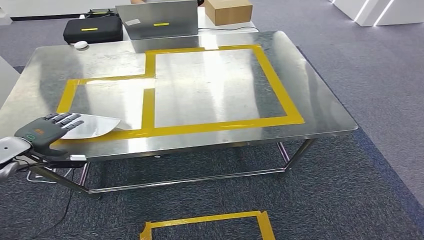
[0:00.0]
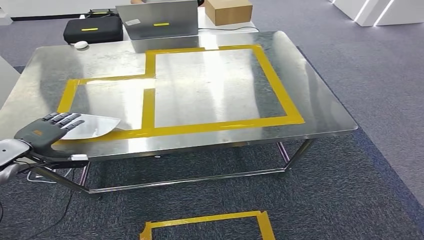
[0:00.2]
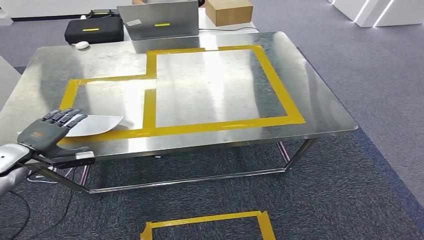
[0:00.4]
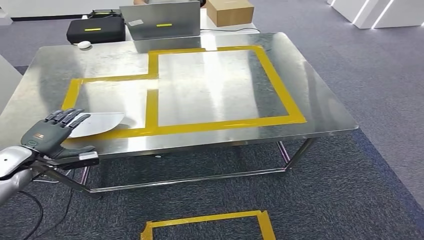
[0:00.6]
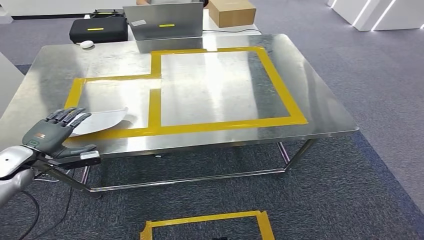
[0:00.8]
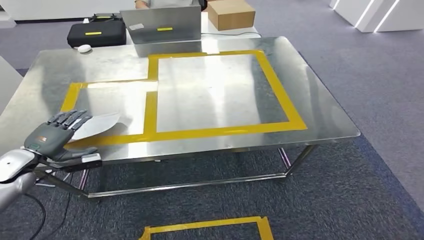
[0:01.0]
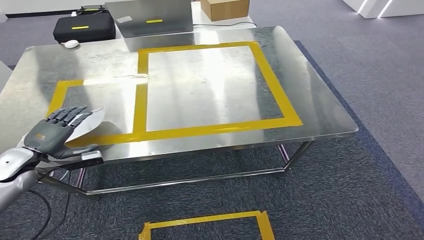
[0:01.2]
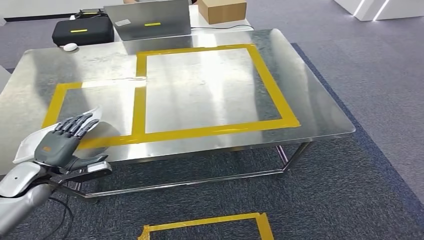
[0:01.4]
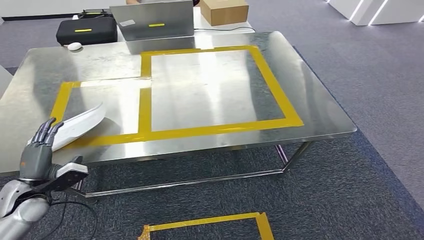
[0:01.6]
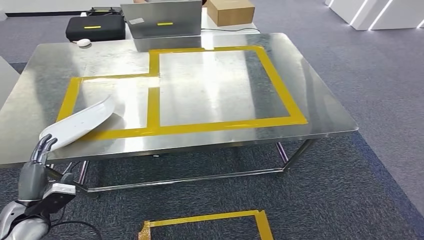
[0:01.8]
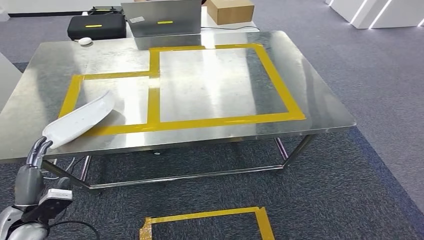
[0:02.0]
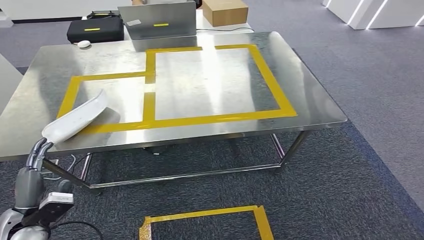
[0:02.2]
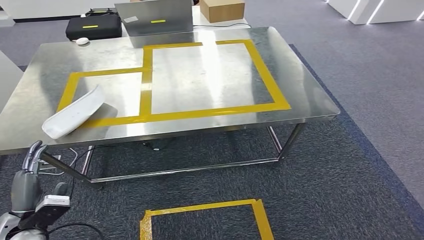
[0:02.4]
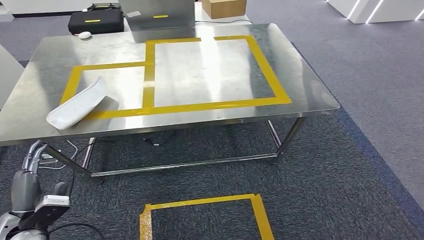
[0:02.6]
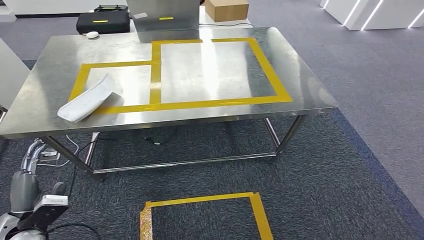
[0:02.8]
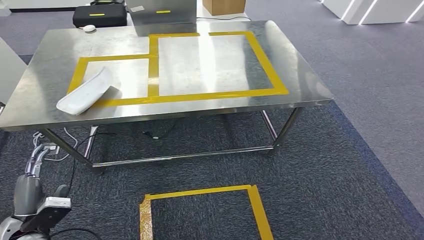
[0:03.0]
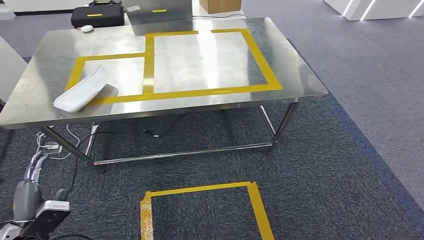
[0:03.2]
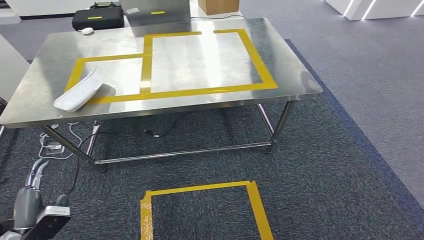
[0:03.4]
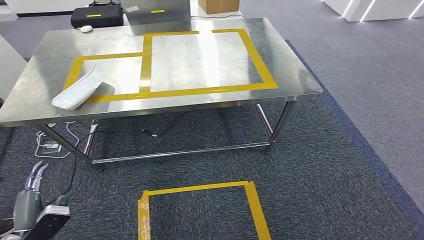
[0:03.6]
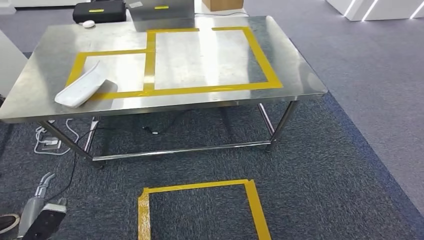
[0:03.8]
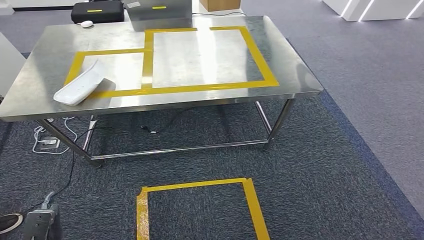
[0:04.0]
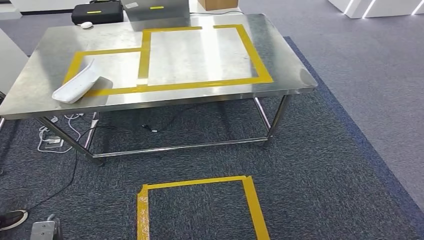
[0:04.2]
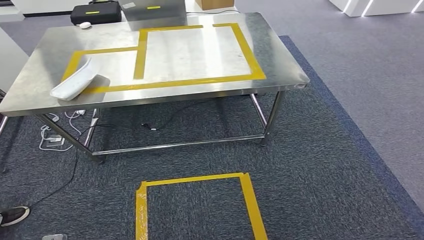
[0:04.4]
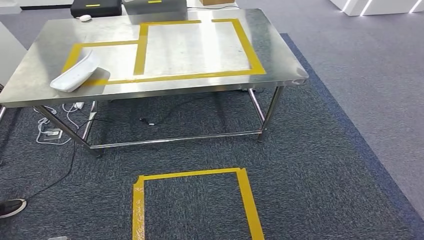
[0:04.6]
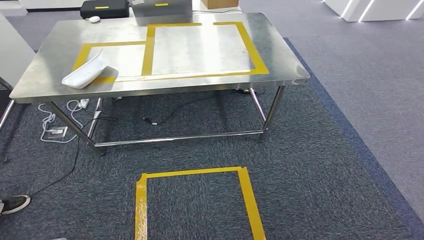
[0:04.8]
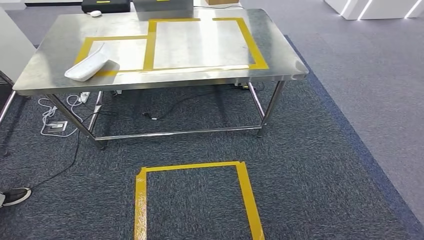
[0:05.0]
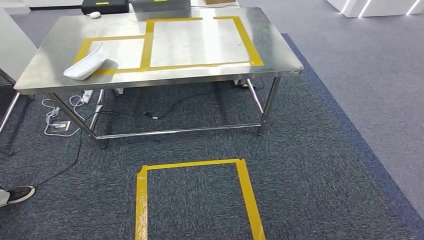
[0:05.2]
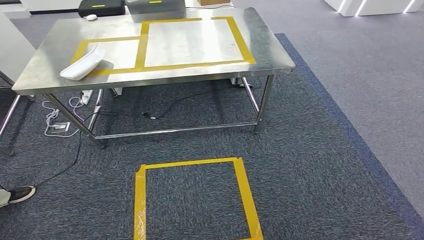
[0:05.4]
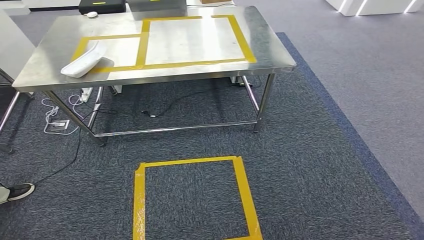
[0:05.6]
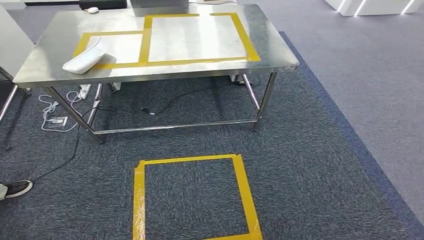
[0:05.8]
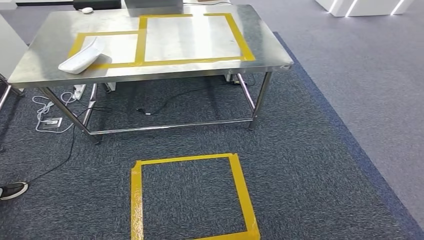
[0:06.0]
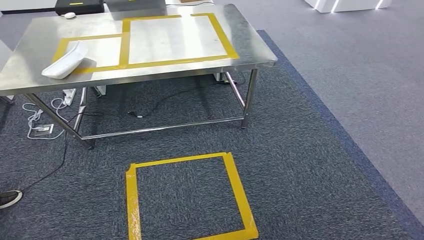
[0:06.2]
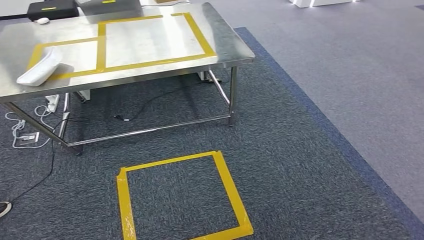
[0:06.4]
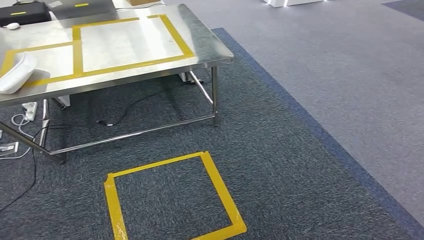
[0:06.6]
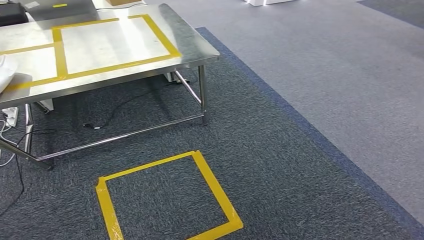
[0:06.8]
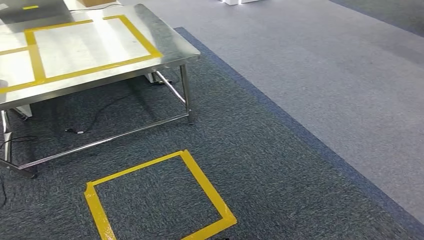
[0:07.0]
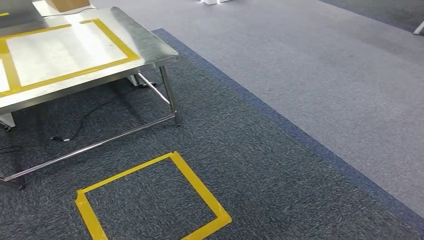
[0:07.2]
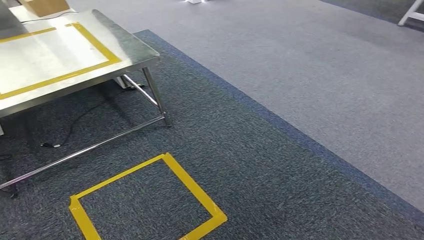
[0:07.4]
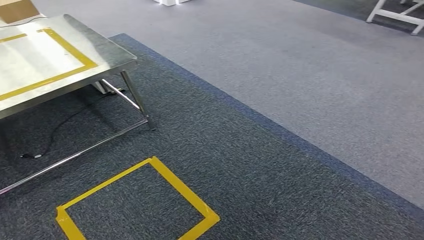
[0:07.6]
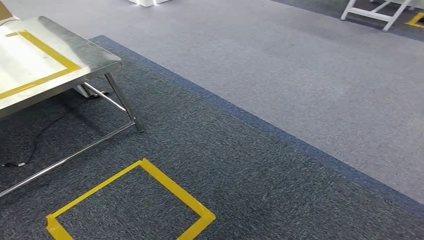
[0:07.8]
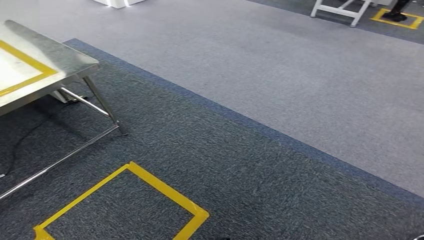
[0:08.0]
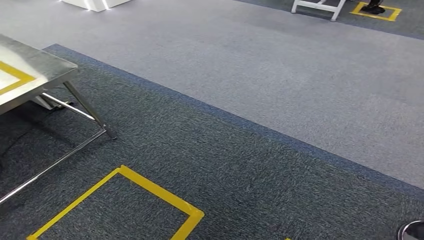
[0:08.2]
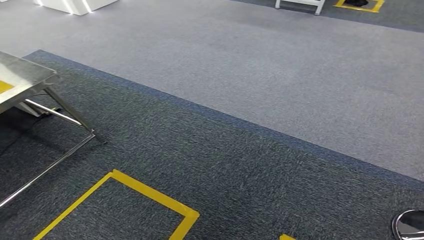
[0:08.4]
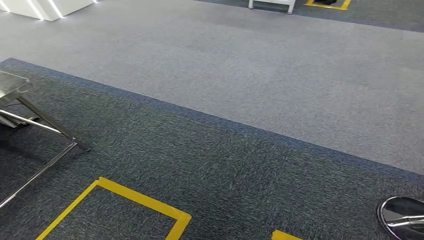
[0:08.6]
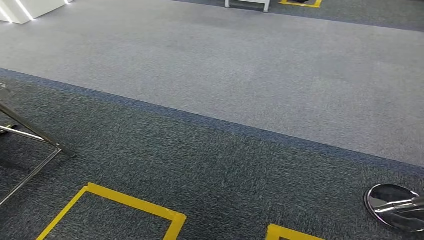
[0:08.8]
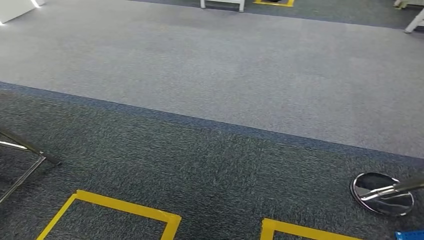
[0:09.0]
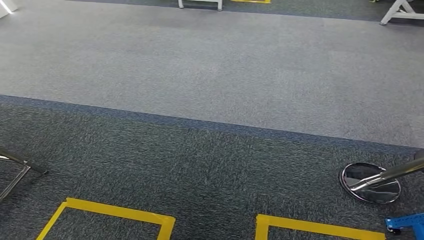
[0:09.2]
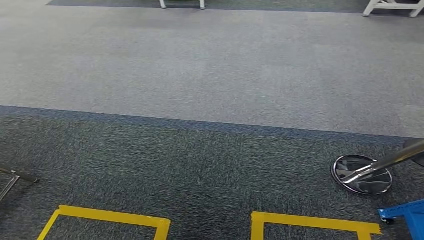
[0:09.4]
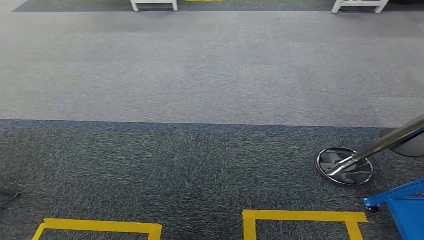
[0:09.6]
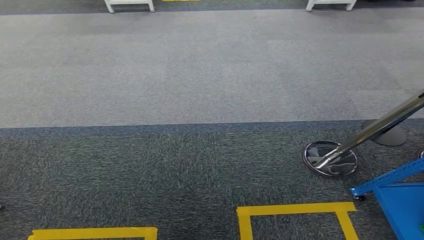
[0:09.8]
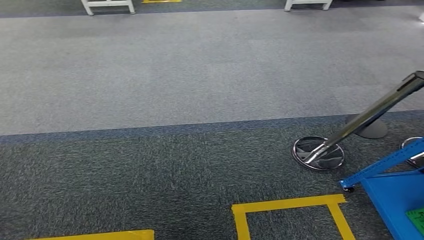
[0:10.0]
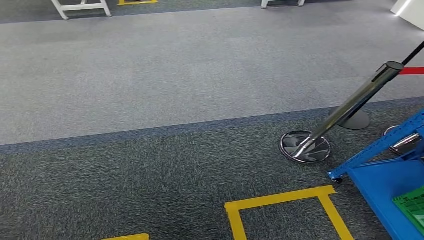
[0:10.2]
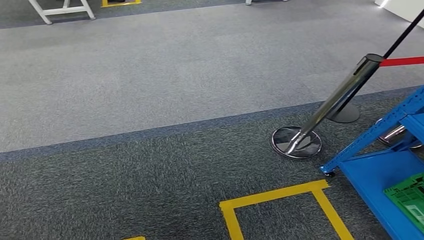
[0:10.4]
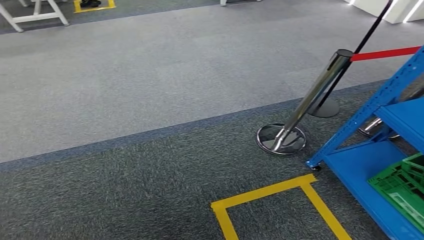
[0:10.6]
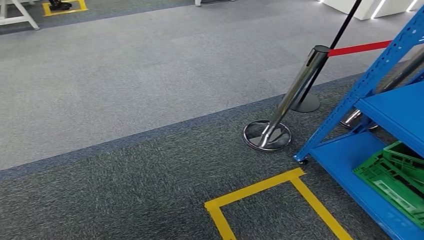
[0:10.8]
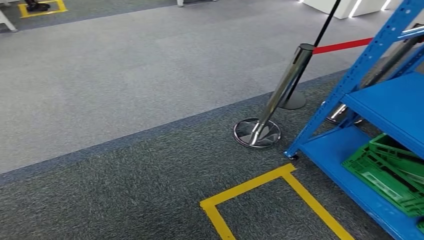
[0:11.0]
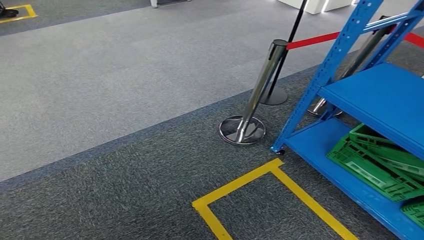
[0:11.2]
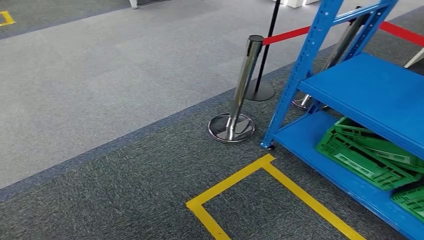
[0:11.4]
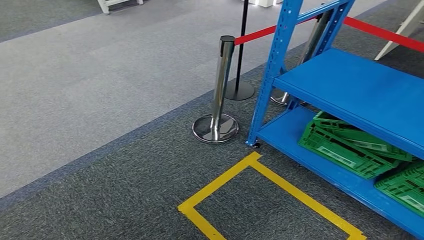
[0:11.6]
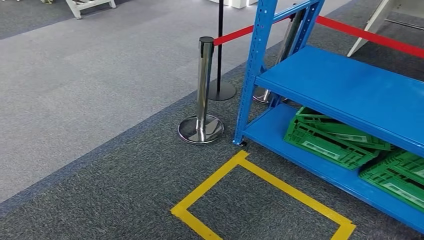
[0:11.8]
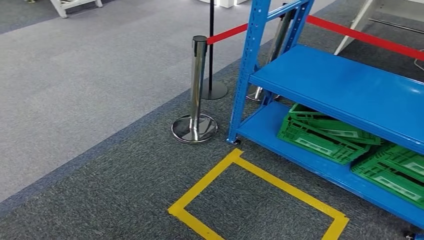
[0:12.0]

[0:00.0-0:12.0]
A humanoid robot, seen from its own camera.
0:00.0 to 0:01.6: The left hand shifts approximately 15 cm backward and downward.

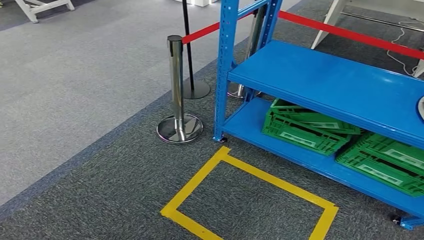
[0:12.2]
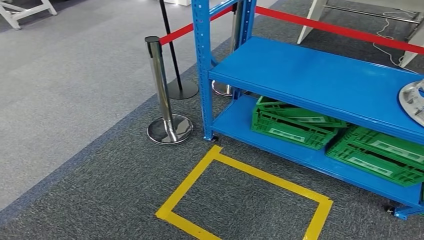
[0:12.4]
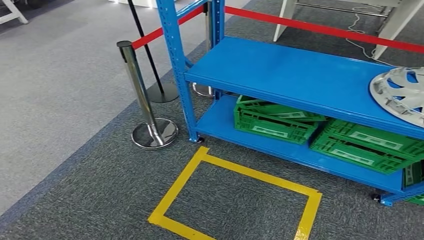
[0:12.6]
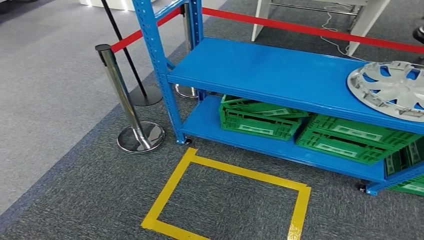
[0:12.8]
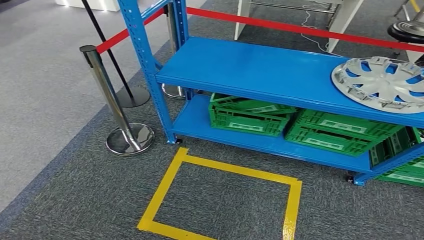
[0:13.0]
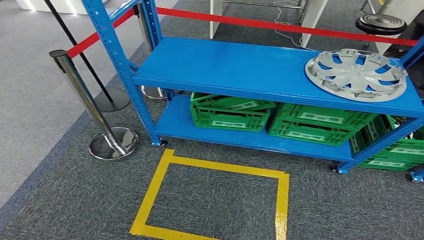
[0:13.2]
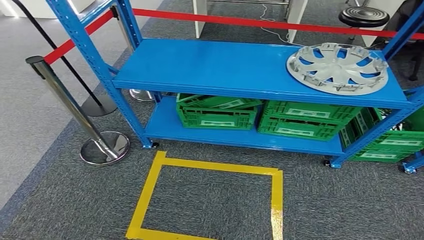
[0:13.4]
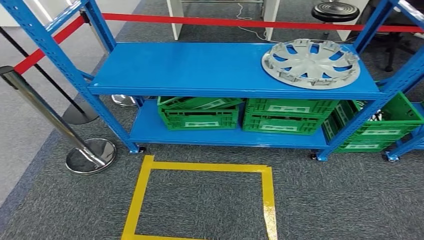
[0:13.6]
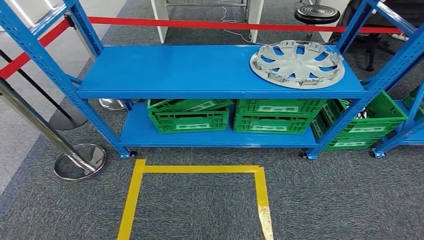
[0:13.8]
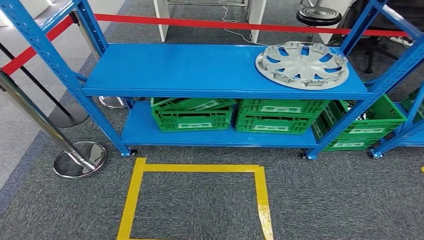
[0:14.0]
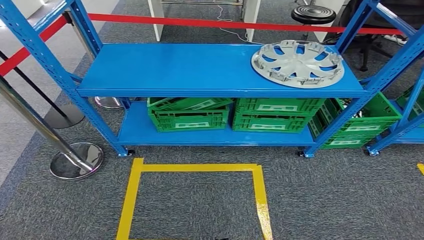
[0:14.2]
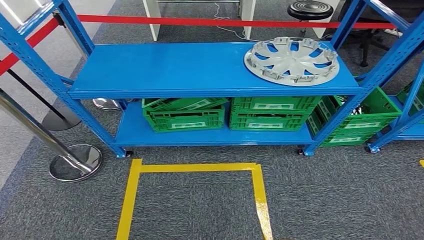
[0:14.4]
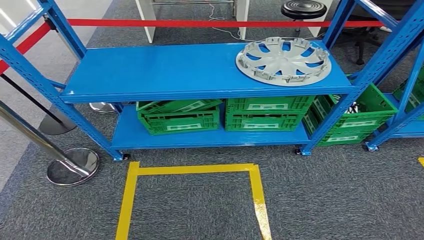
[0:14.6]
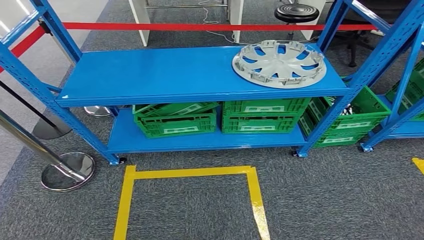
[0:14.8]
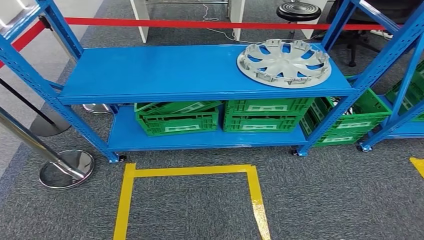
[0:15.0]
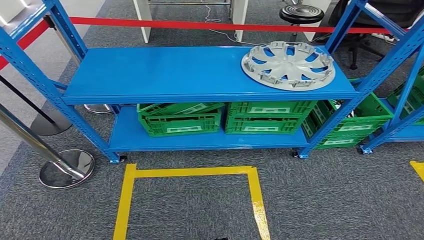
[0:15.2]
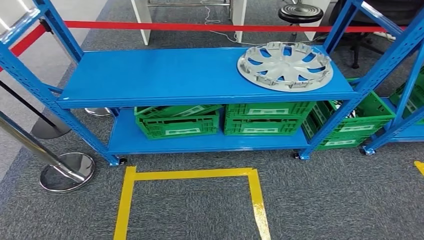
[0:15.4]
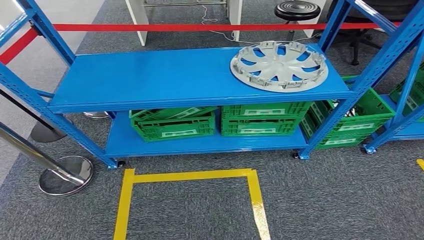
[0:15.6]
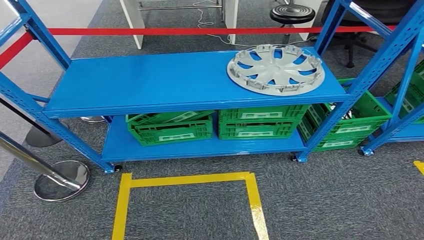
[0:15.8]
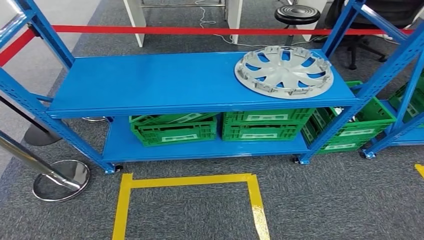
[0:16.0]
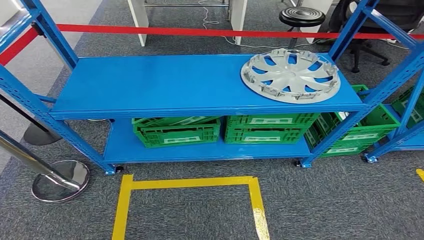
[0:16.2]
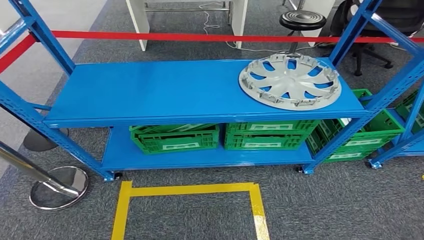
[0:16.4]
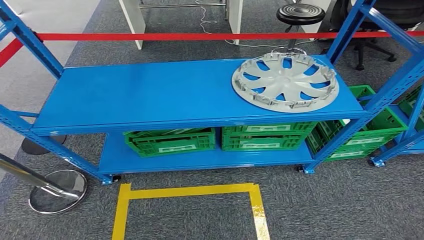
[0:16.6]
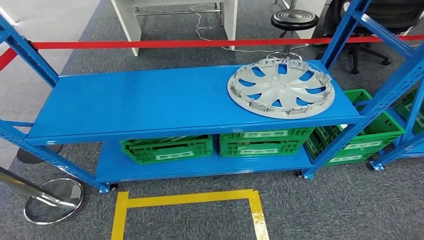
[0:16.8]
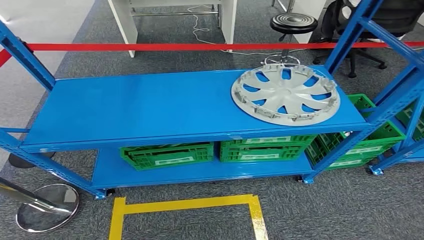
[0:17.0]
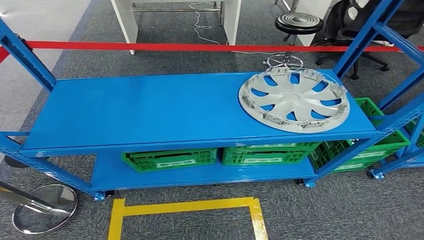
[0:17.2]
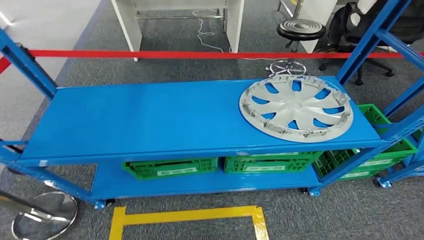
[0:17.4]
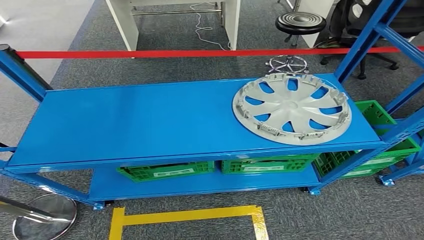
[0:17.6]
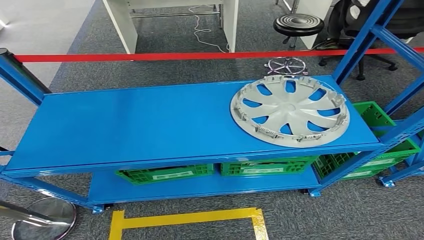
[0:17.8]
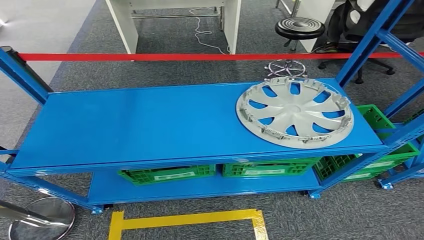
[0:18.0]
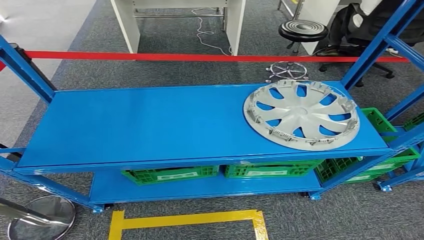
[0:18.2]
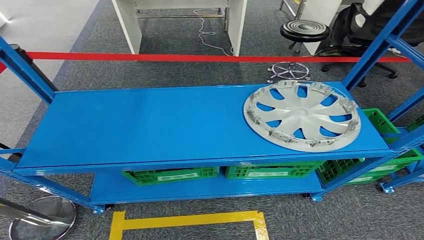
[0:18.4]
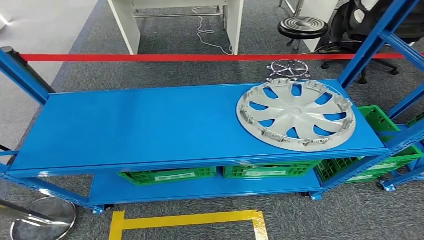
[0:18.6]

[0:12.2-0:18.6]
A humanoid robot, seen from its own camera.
Step, 0:12.2 to 0:18.6: Return to the initial position at the workbench.
